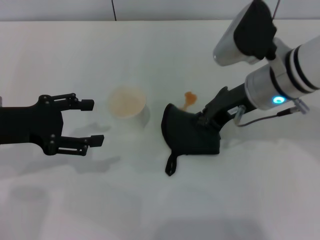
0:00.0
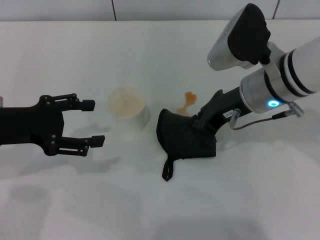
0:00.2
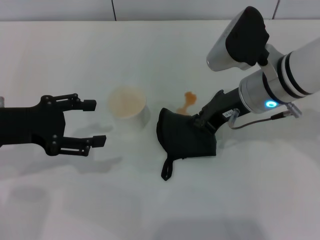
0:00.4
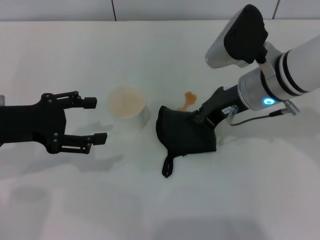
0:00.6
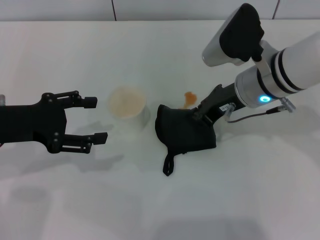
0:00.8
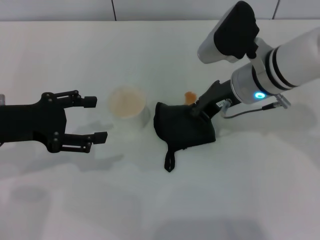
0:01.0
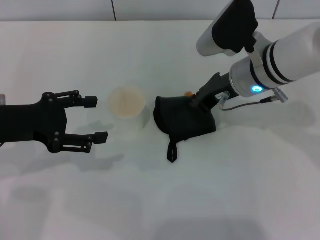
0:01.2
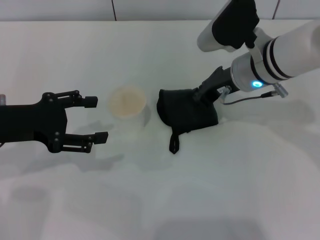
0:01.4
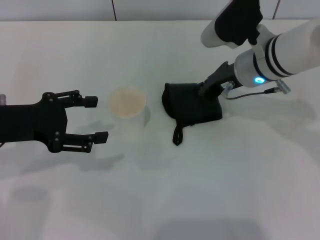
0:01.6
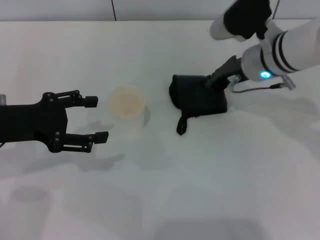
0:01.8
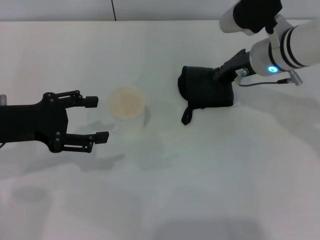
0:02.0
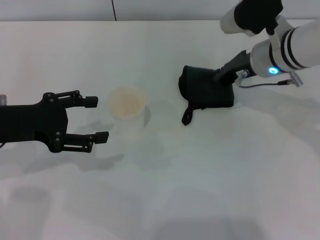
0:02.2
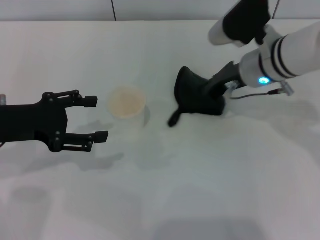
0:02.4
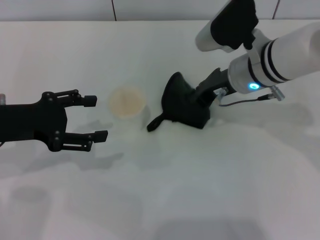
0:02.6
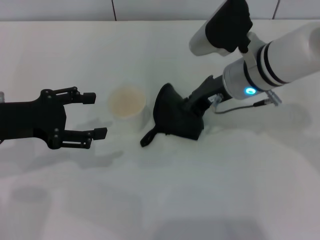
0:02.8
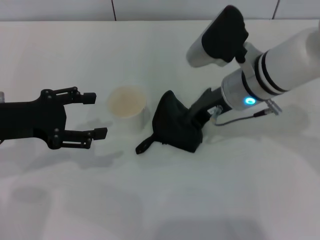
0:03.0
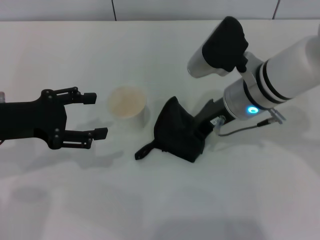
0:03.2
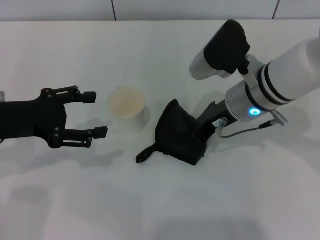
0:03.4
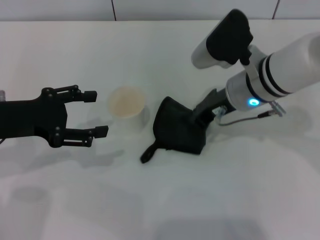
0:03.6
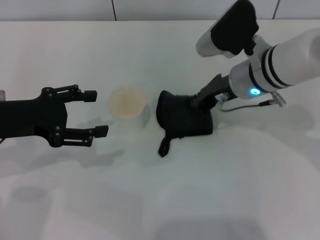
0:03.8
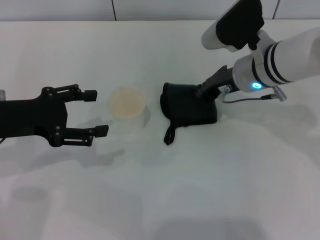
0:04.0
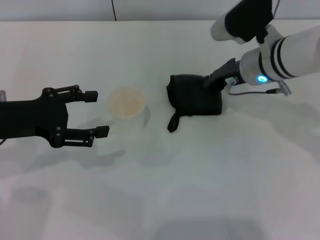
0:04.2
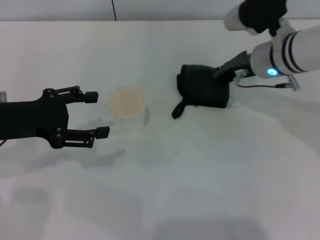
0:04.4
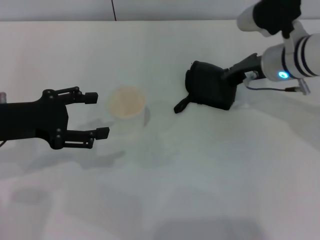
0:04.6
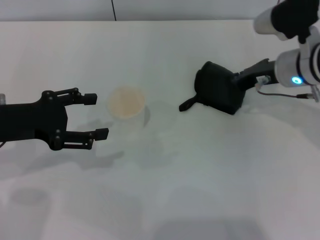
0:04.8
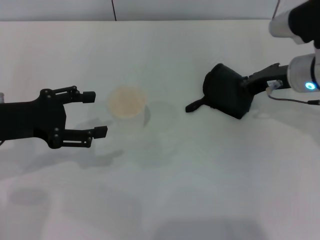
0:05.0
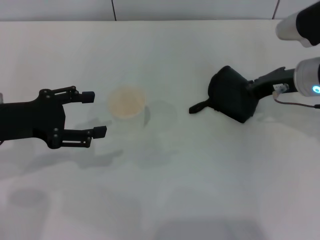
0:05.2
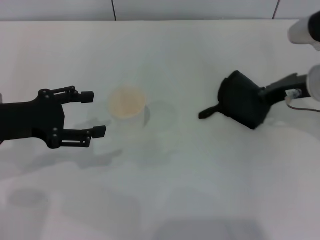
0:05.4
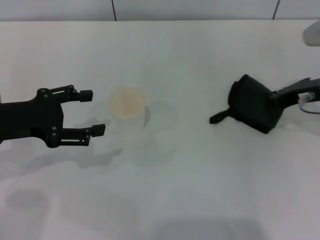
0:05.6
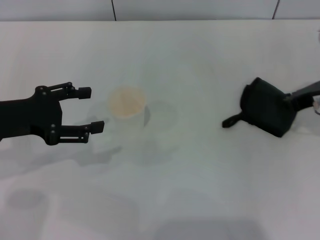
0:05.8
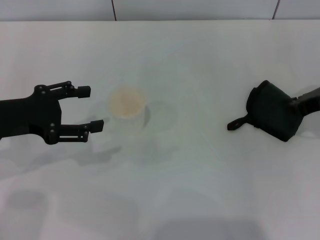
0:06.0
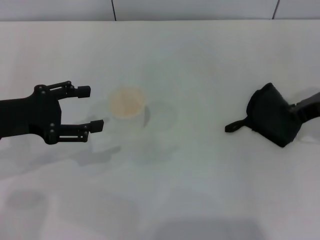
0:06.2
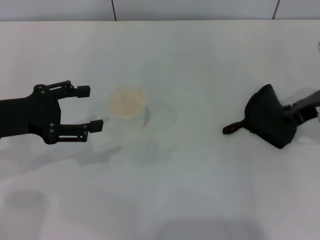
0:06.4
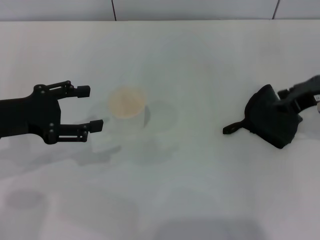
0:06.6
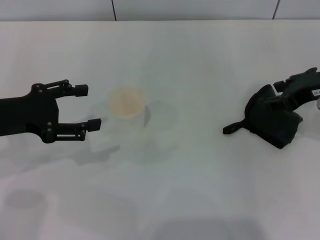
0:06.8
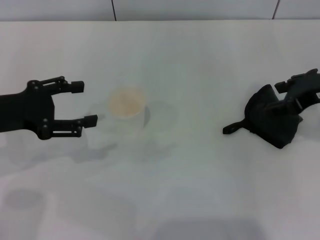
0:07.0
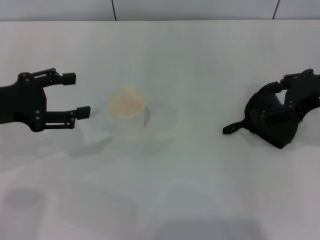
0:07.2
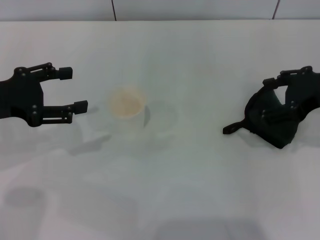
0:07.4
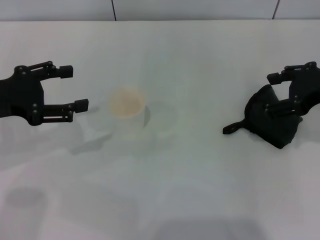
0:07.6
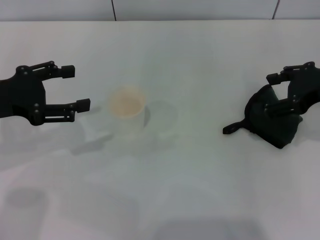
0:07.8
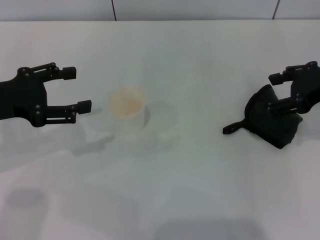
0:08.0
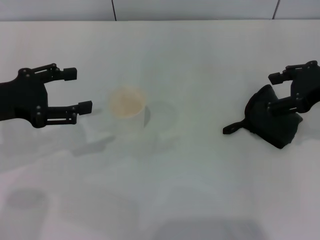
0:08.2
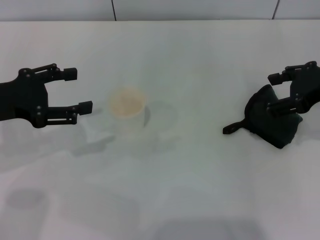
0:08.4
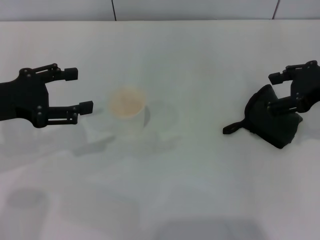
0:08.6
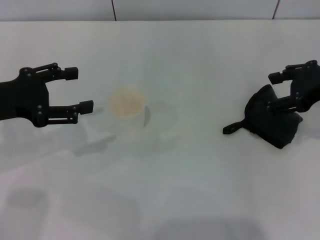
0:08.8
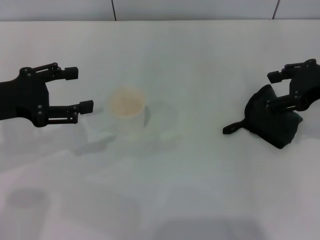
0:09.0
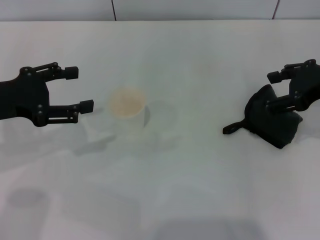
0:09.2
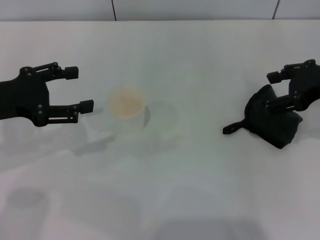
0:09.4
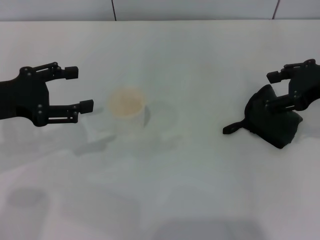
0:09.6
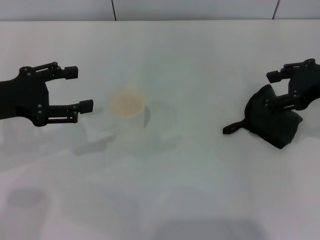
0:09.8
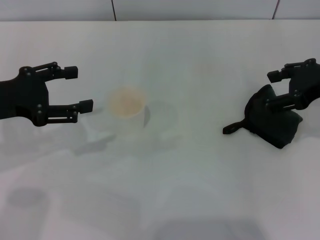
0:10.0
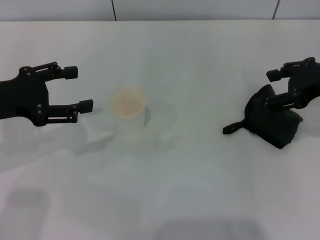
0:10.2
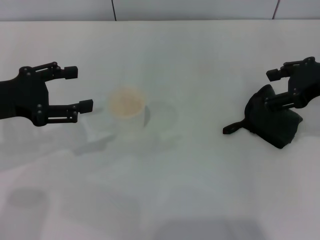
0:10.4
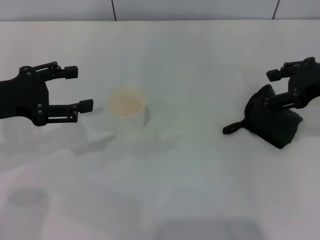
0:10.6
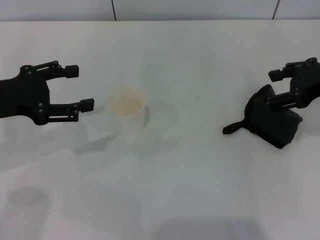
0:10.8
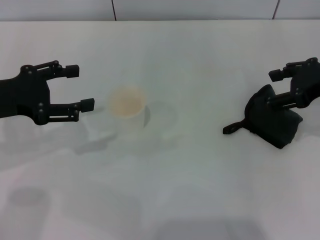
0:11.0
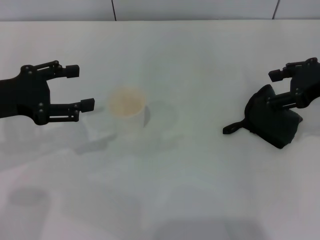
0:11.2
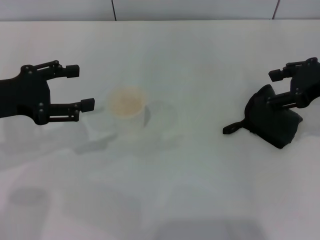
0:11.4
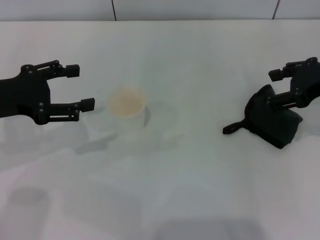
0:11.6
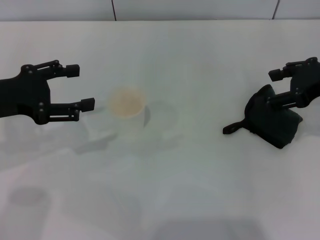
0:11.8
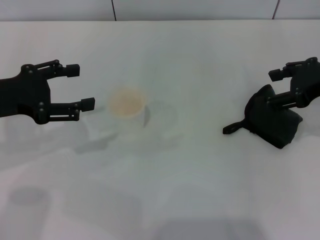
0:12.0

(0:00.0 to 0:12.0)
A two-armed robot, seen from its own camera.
Step, 0:00.0 - 0:05.6: Wipe the stains off the table with the right gripper.
Step, 0:05.8 - 0:07.0: Place the rag on the table with the right gripper.
0:00.0 - 0:01.6: The right gripper ends up roughly 5 cm from where it was.
0:01.6 - 0:03.0: The grippers move only a little.
0:03.0 - 0:04.4: The right gripper goes some 5 cm to the right.
0:04.4 - 0:06.0: The right gripper moves to the right and backward, approximately 15 cm.
0:06.0 - 0:07.6: The right gripper goes approximately 5 cm upward, and opens.
0:07.6 - 0:10.4: Neither gripper changes place.
0:10.4 - 0:12.0: The two grippers keep their place.

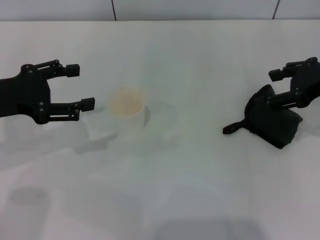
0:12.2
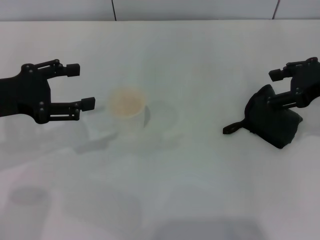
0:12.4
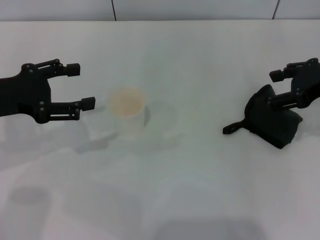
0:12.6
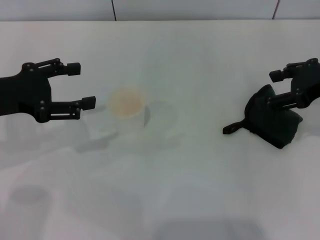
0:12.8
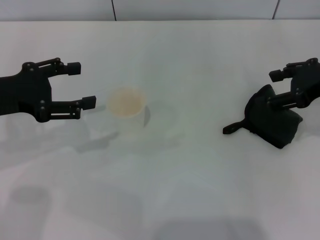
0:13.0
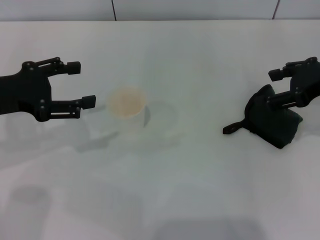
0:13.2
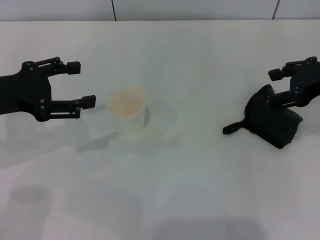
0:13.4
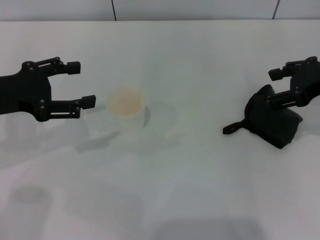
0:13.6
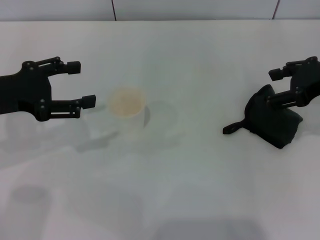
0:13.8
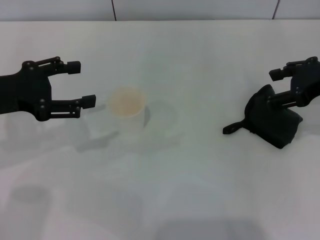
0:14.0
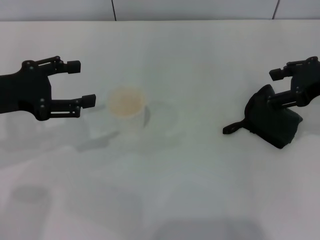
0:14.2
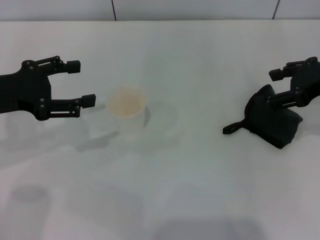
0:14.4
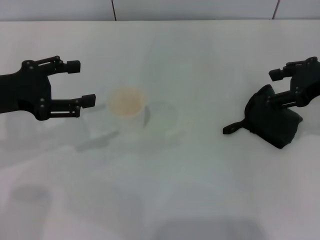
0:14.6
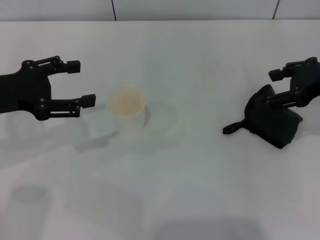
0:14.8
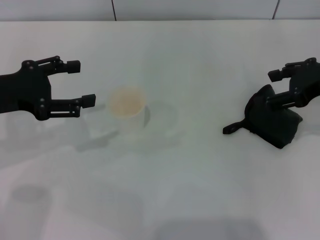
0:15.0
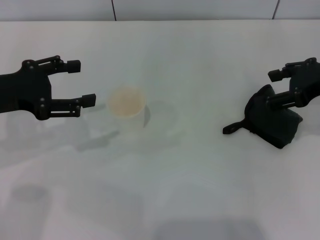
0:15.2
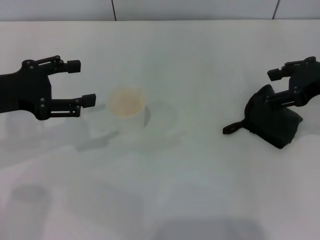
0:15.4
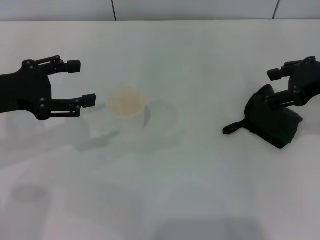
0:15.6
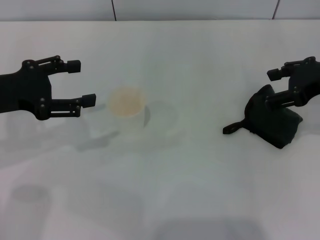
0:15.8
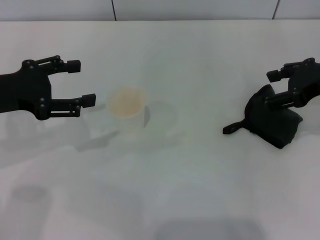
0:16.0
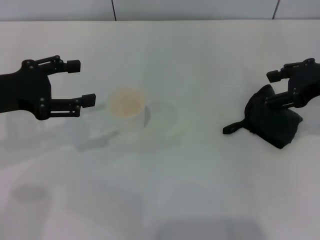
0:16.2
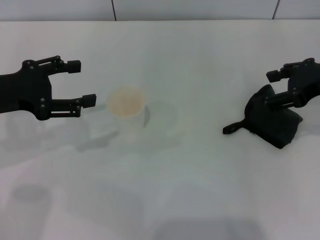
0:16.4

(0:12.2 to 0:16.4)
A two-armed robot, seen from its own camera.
0:12.2 - 0:16.4: Neither gripper changes place.
